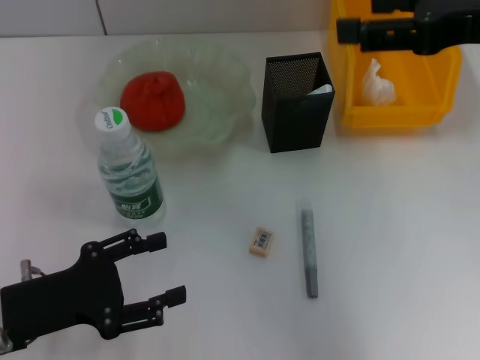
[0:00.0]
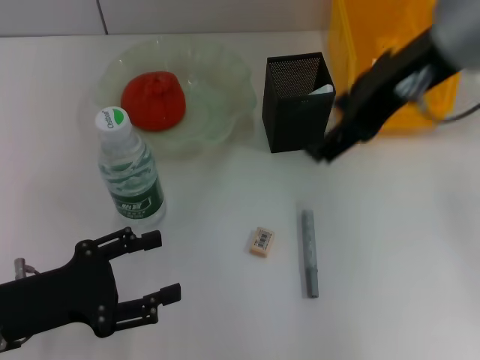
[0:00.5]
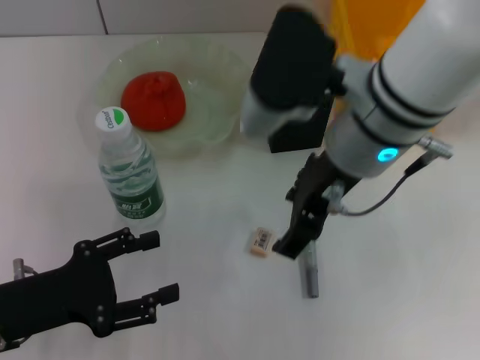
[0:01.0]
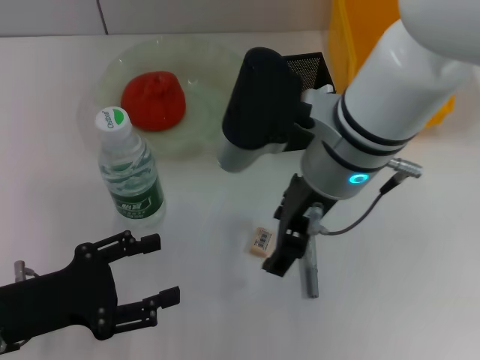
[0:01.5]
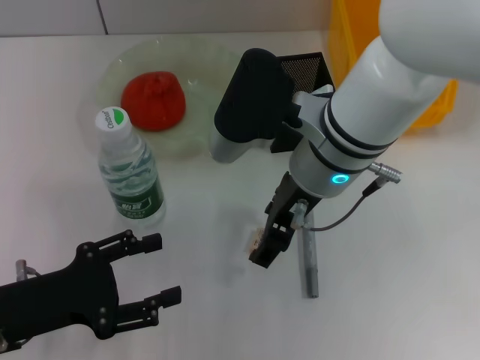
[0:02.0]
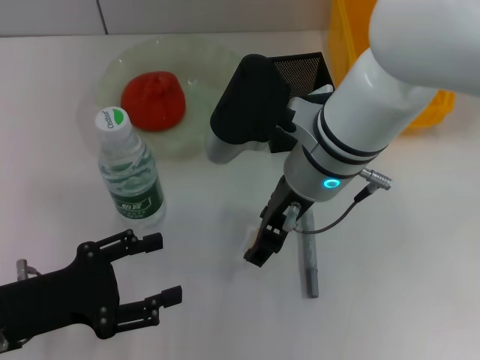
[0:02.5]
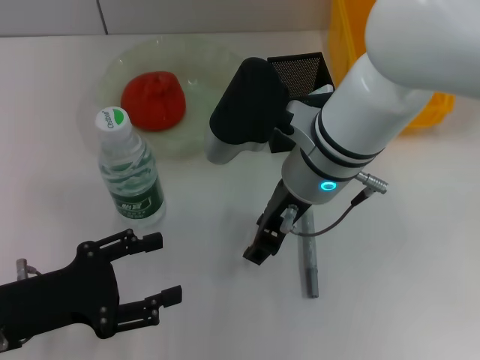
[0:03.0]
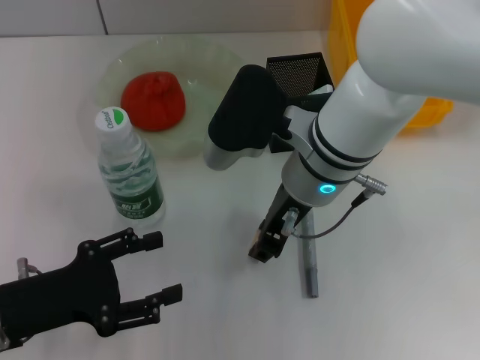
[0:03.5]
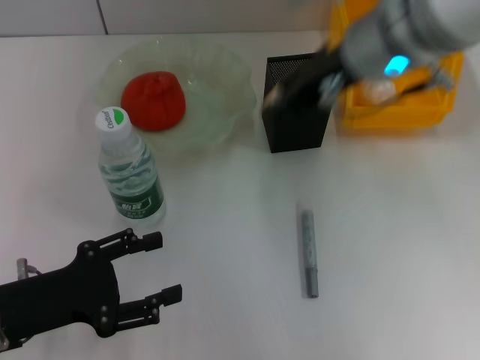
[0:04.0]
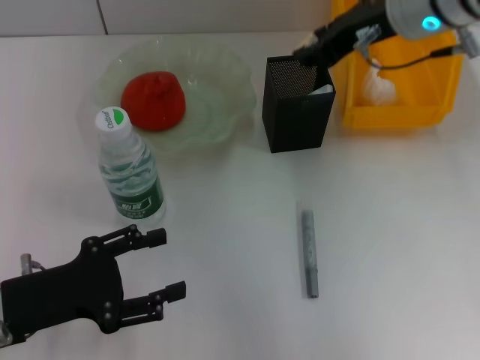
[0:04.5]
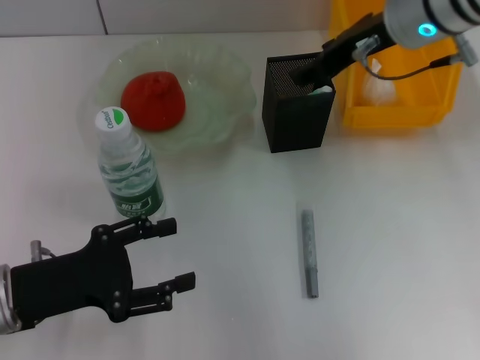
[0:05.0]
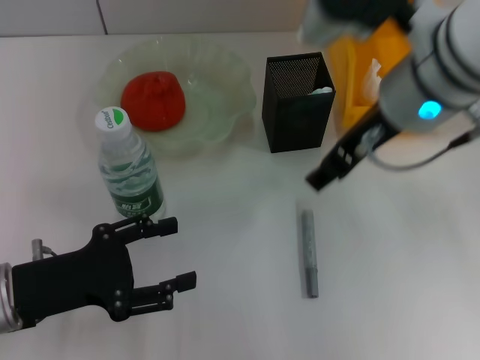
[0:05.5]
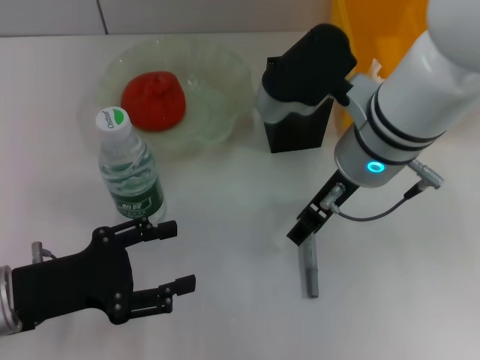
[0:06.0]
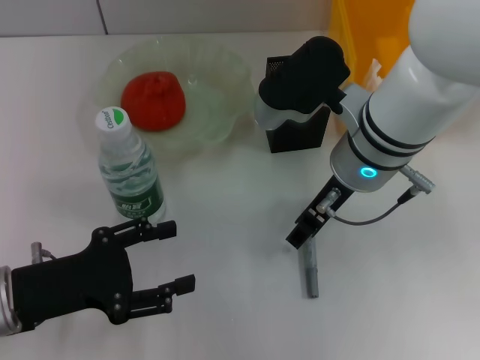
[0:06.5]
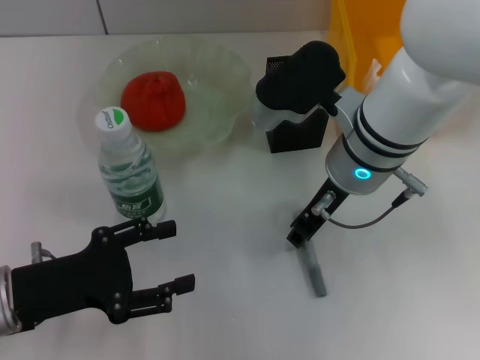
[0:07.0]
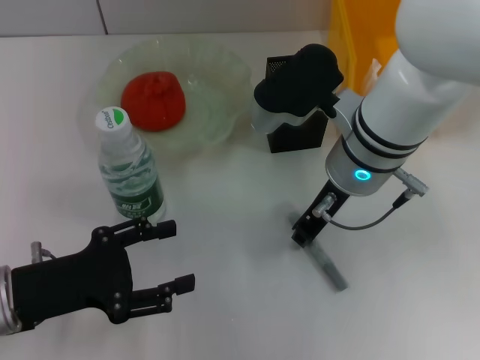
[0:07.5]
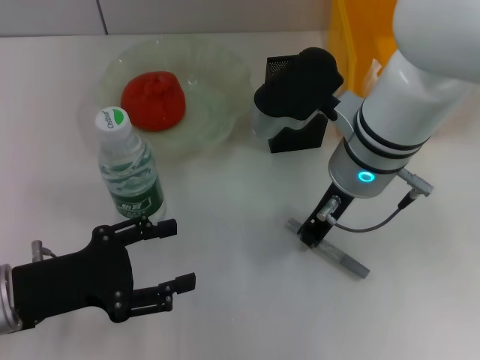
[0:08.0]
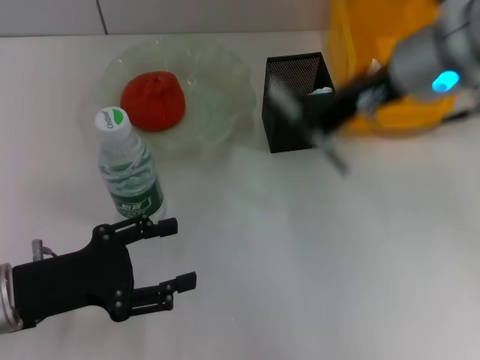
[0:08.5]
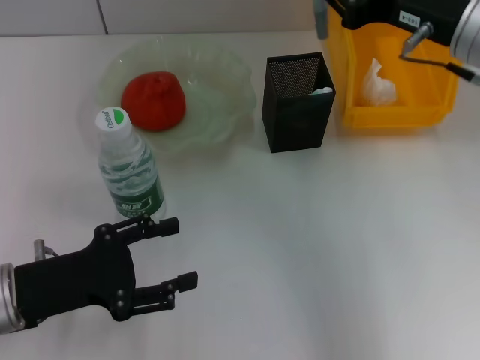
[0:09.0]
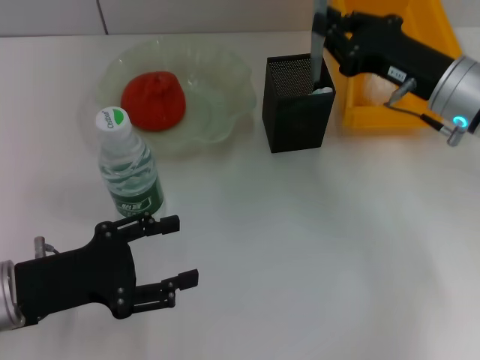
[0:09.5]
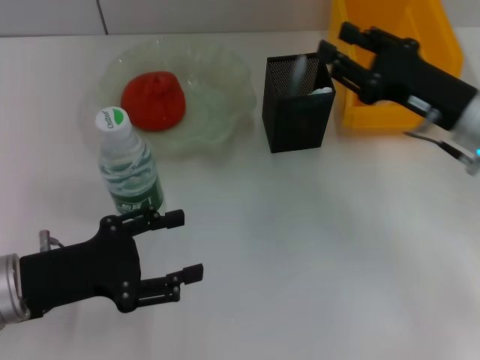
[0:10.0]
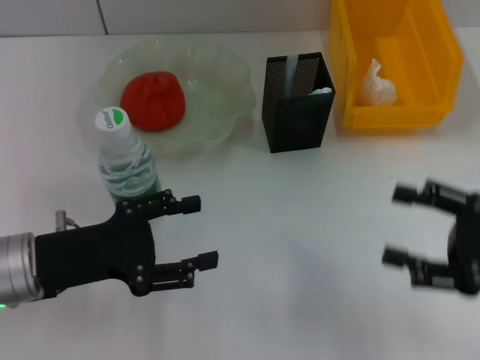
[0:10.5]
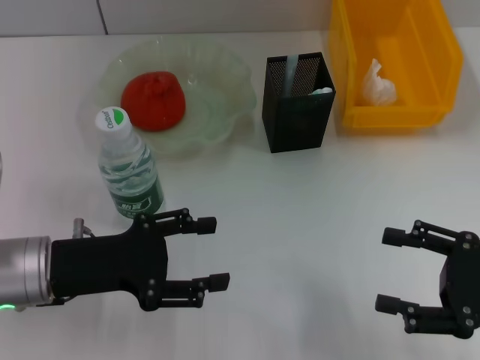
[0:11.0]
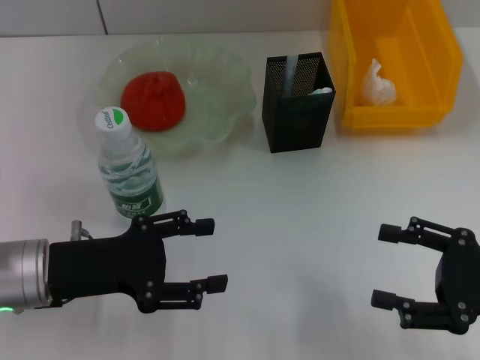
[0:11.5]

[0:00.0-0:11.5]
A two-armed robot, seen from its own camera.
Step, 0:00.0 to 0:03.0: Grab the eraser with the right hand.
Step, 0:03.5 to 0:04.5: Put the eraser into the pen holder with the right hand.
Step, 0:05.0 to 0:07.5: Grab the gray glue with the right hand.
Step, 0:08.0 to 0:09.5: Place the gray glue into the pen holder with the right hand.
0:00.0 to 0:02.0: The right gripper goes approximately 20 cm to the left and downward.
0:02.0 to 0:04.0: The right gripper moves upward and to the right, approximately 10 cm, and closes.
0:04.0 to 0:06.0: The right gripper travels downward by approximately 10 cm, and opens up.
0:06.0 to 0:07.5: The right gripper closes.
0:07.5 to 0:09.5: The right gripper travels to the right by roughly 15 cm, and closes up.
0:09.5 to 0:11.5: The right gripper shifts approximately 20 cm backward and to the right, and opens.

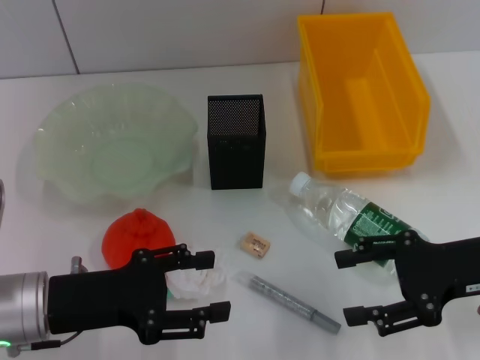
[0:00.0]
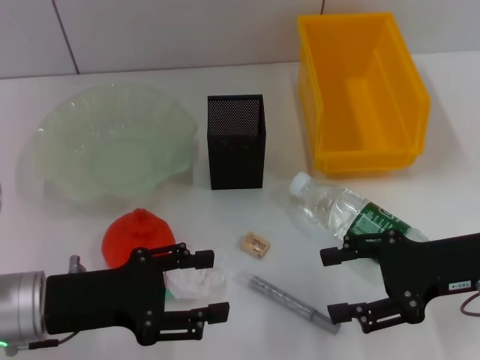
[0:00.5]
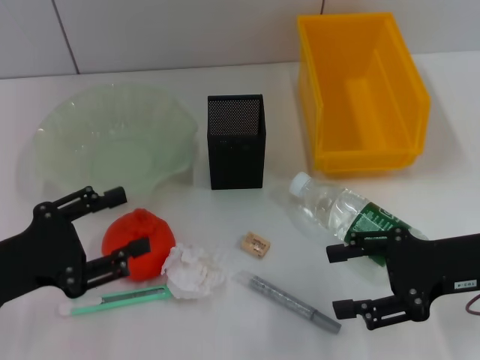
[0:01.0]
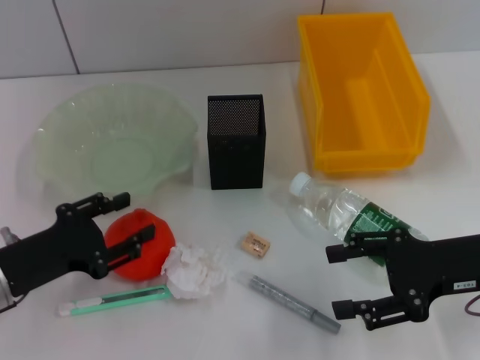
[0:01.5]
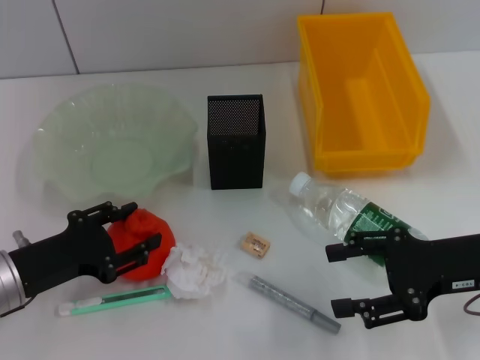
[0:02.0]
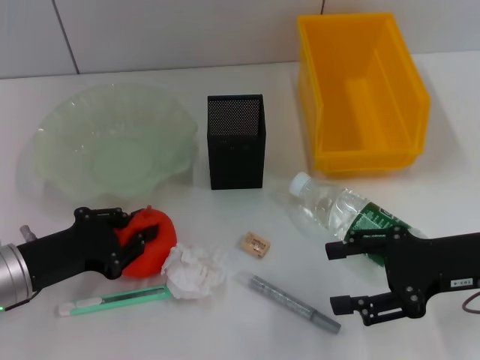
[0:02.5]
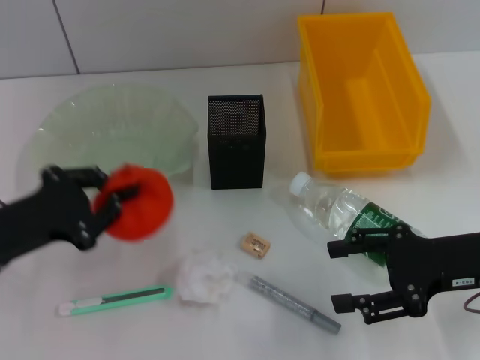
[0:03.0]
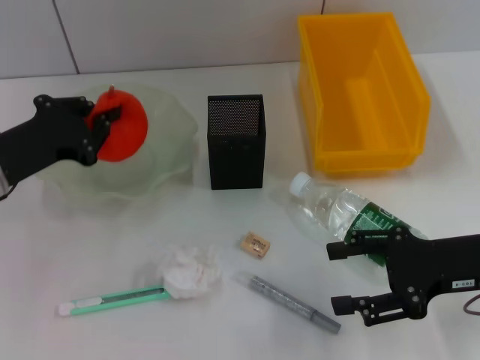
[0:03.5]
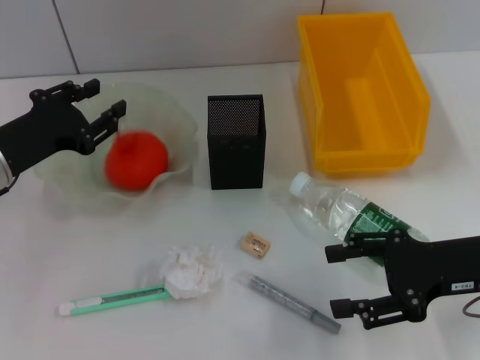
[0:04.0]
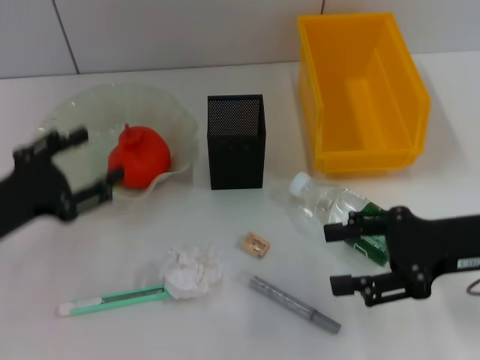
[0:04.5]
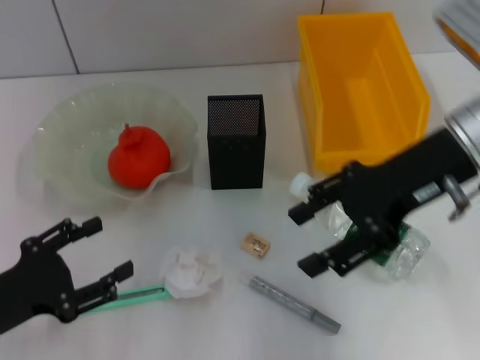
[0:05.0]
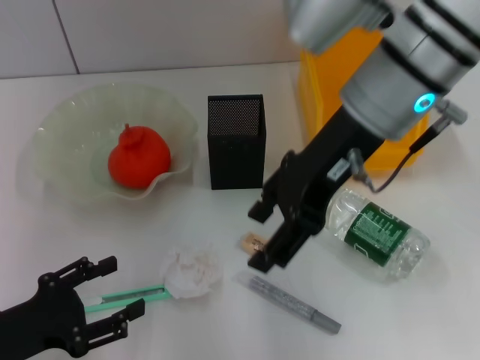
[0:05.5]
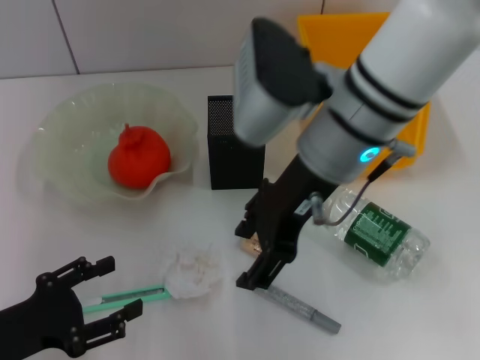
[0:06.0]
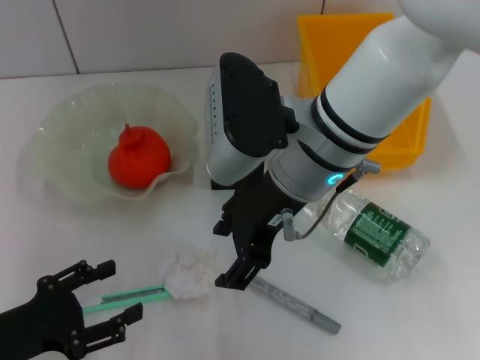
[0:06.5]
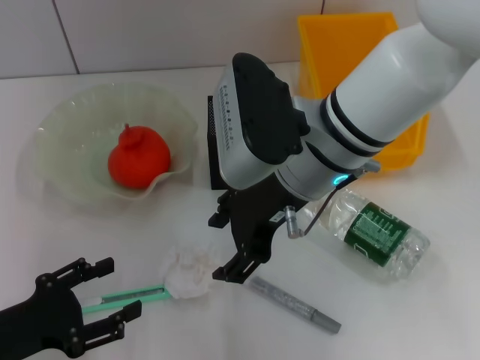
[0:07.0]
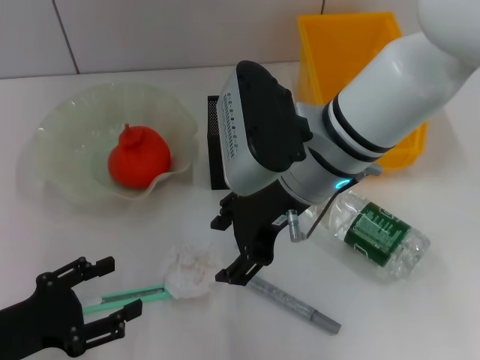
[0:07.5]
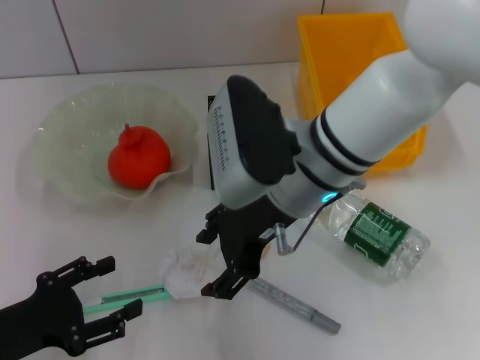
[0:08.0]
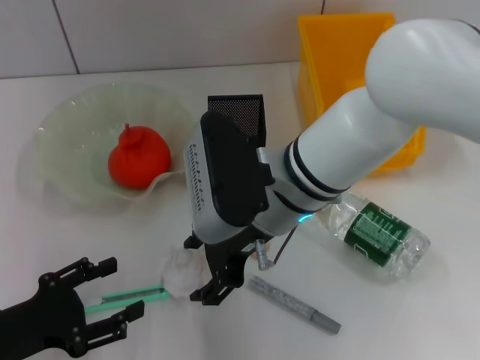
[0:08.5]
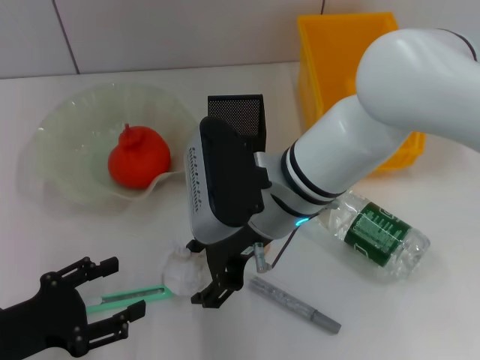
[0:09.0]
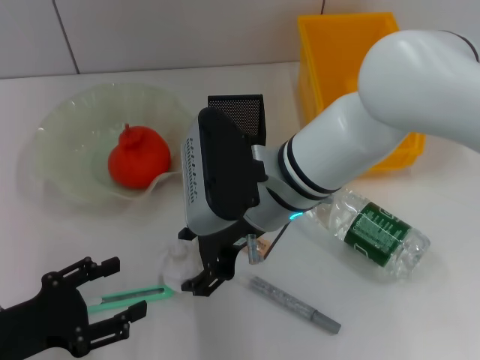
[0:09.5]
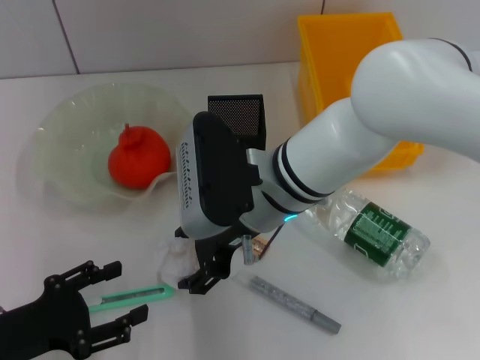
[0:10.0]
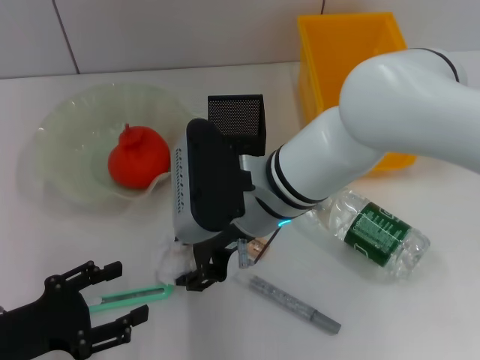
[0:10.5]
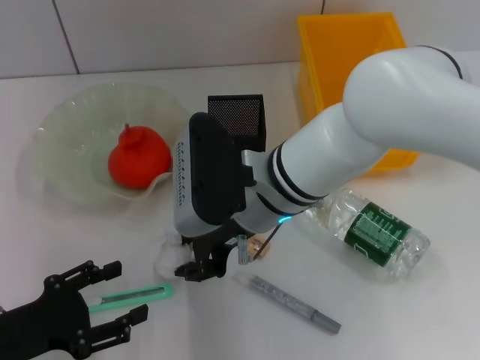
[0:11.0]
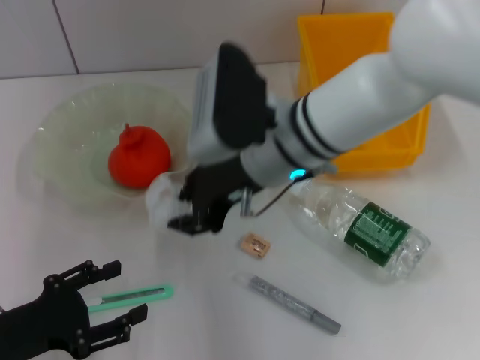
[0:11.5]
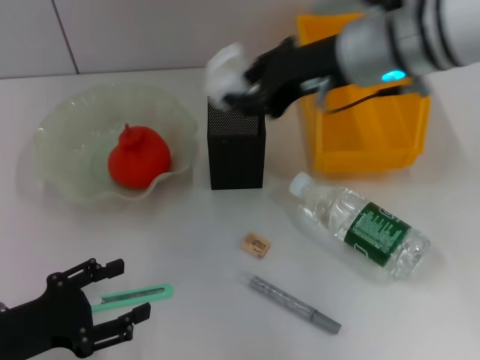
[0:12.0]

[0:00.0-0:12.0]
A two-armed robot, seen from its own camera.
Step, 0:00.0 to 0:02.0: Grab the orange with the left hand.
Step, 0:02.5 to 0:04.0: Place the orange into the fruit bowl with the left hand.
Step, 0:04.5 to 0:10.5: Grab the paper ball with the right hand.
0:00.0 to 0:02.0: The left gripper changes place by about 5 cm.
0:02.0 to 0:04.0: The left gripper travels forward and upward by some 10 cm, and closes up.
0:04.0 to 0:06.0: The right gripper goes approximately 25 cm to the left, upward and forward, while the left gripper is displaced backward by some 15 cm, and opens up.
0:08.0 to 0:10.0: The grippers move only a little.
0:10.0 to 0:12.0: The right gripper goes approximately 15 cm to the right and upward, and closes its fingers.

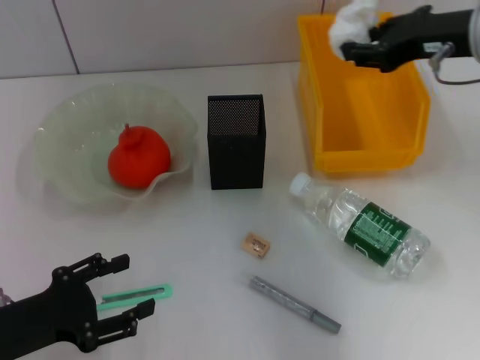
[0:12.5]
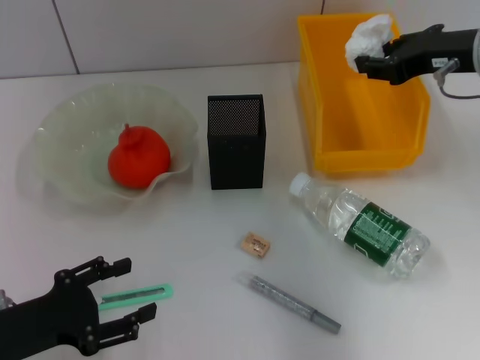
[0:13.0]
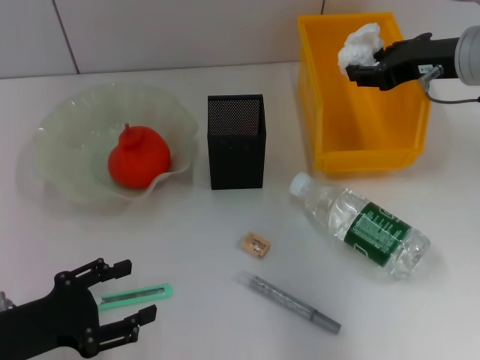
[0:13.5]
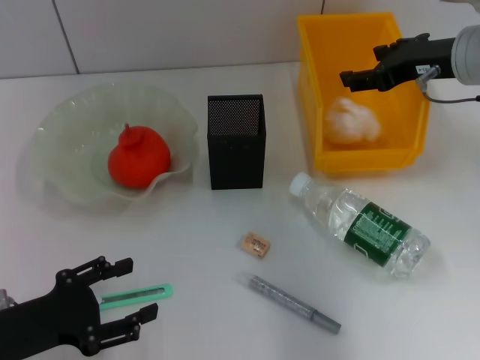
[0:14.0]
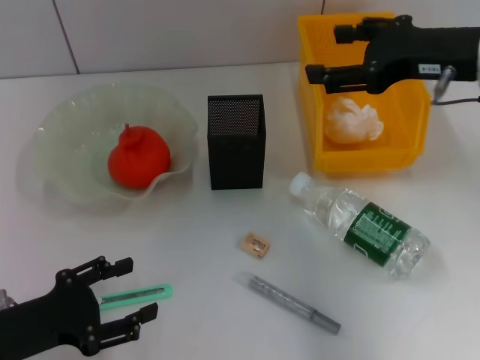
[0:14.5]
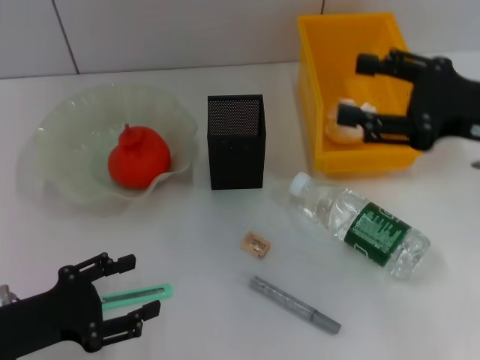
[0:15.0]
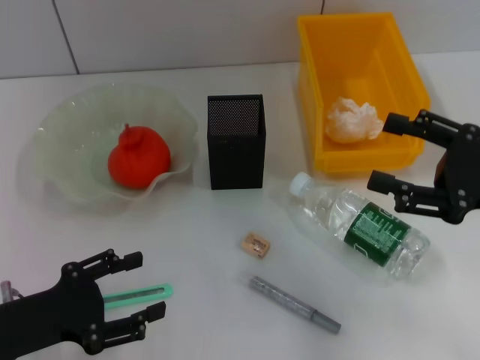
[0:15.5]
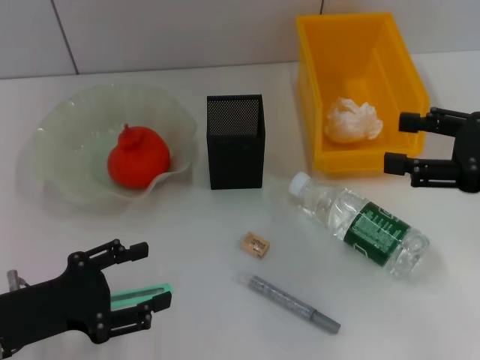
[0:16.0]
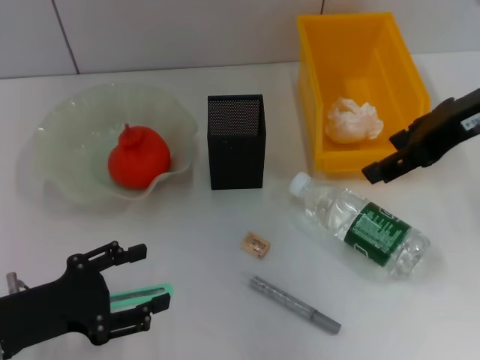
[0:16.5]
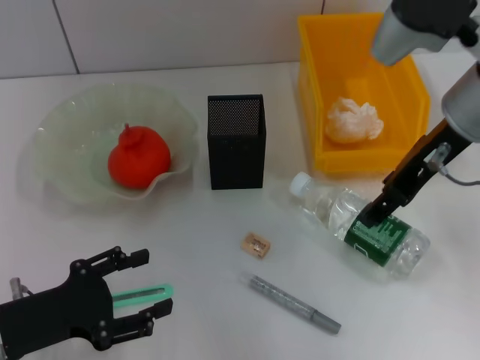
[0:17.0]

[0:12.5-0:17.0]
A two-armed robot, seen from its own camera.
0:12.5 to 0:14.5: The right gripper opens up.
0:14.5 to 0:17.0: The right gripper moves to the left, about 5 cm.
